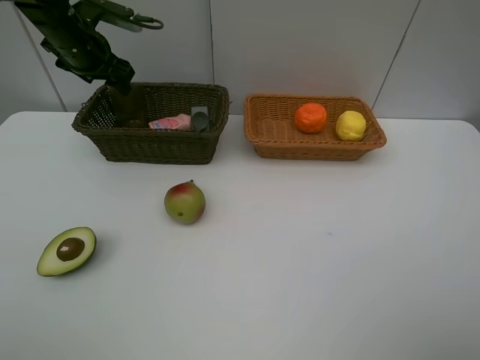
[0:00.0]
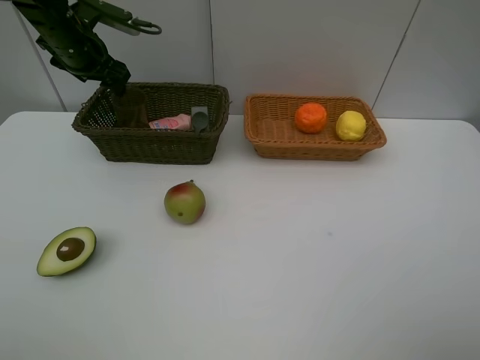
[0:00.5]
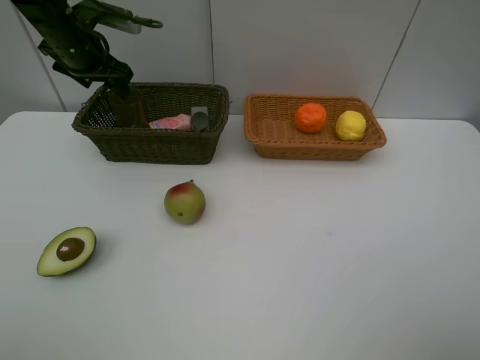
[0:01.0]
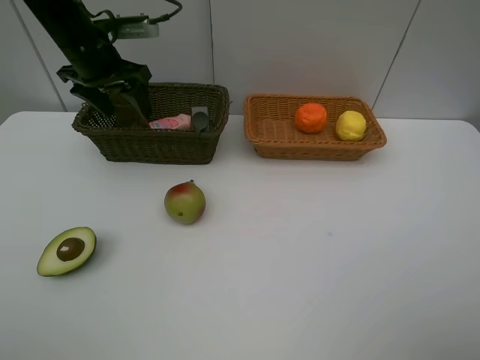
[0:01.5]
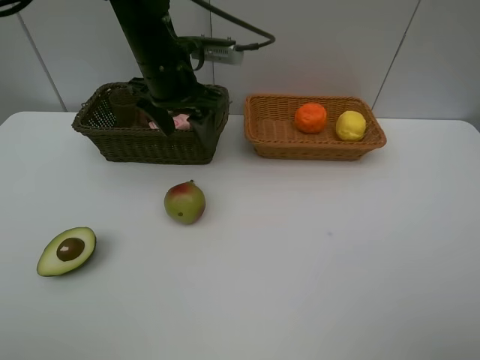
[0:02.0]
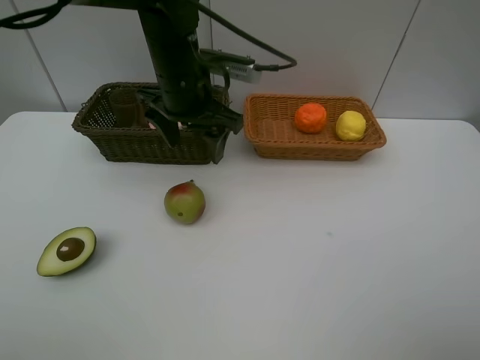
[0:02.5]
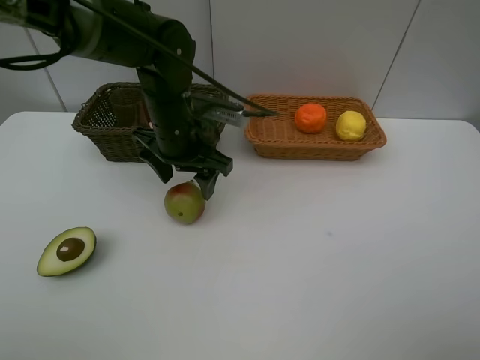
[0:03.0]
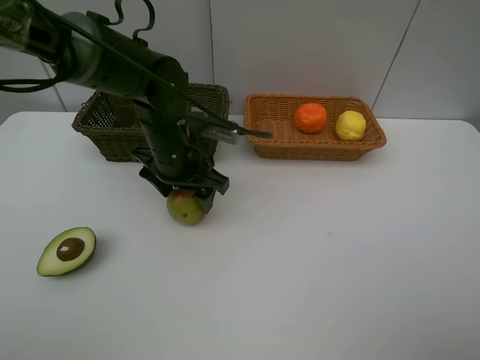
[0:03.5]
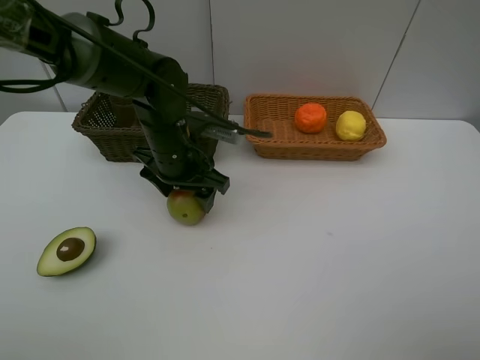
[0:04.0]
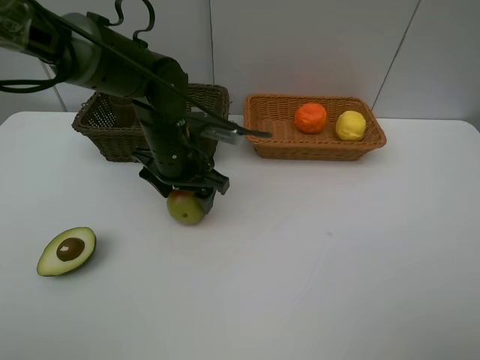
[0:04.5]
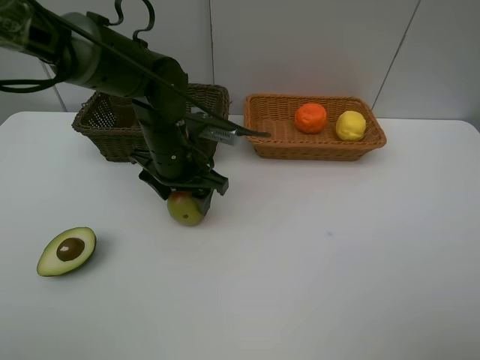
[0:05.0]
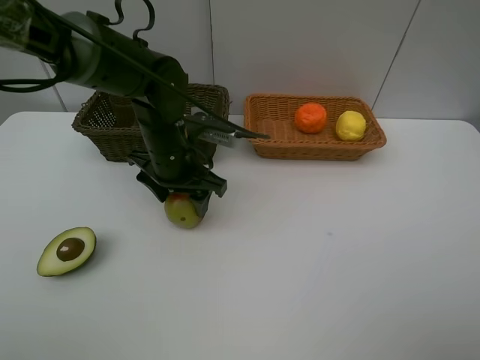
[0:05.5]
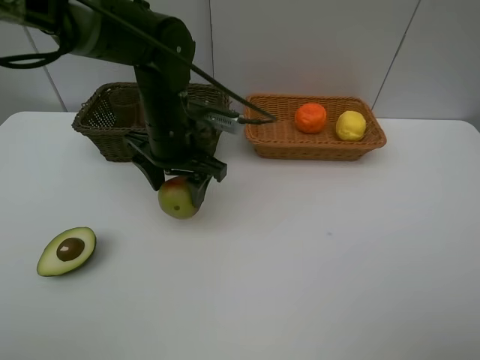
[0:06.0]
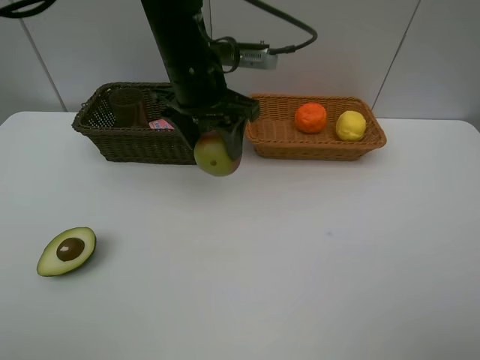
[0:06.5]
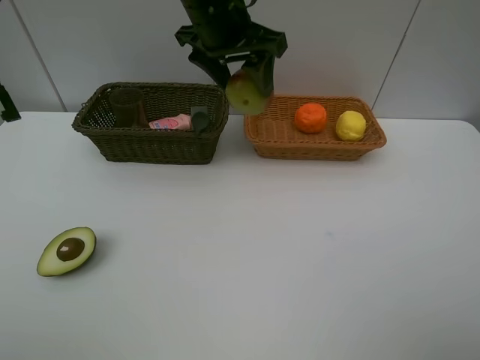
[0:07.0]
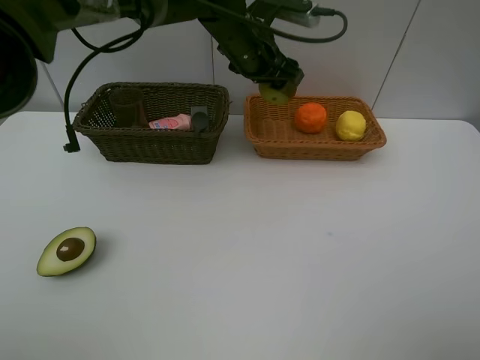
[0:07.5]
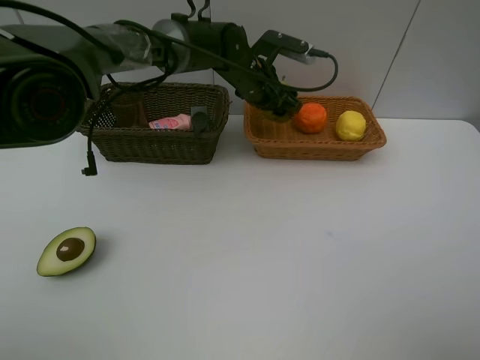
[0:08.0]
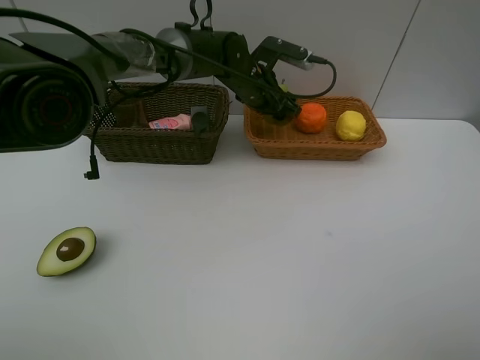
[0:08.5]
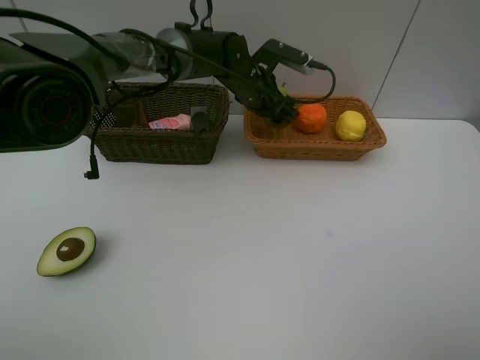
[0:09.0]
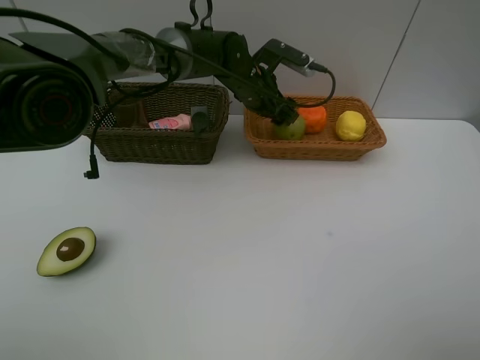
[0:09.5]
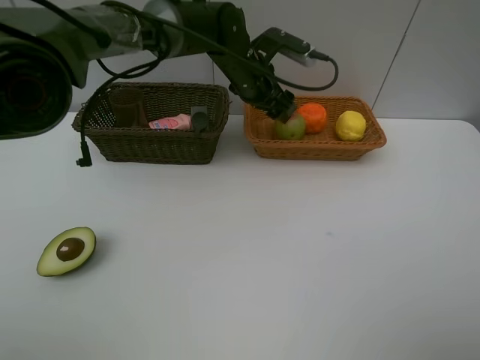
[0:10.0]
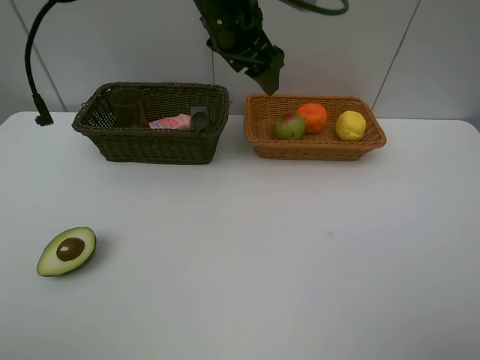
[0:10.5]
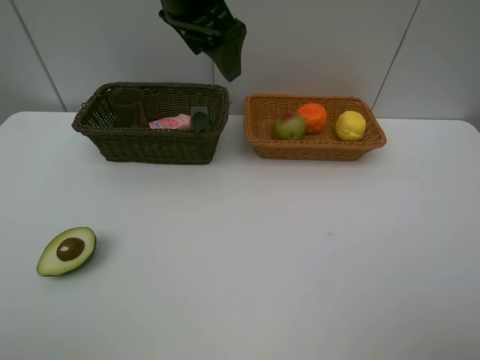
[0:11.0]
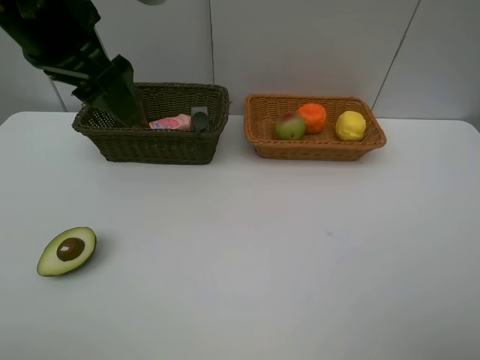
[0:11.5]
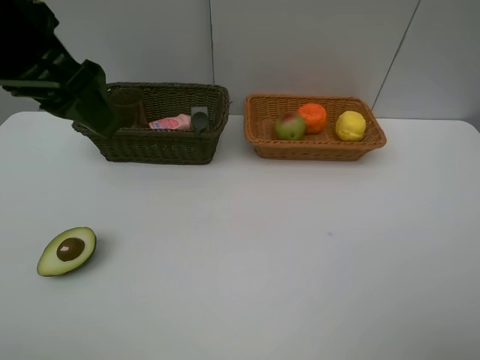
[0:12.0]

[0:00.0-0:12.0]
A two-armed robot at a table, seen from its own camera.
Task of the whole recording: Place multiple objects separately in different baskets.
Step, 0:01.5 to 0:06.0: Pick up the pear with left gripper.
Step, 0:06.5 to 0:10.0: Place the pear in the light basket with left gripper.
0:00.0 to 0:02.0: The left gripper goes approximately 20 cm to the right and backward.
0:02.0 to 0:04.0: The left gripper is displaced downward by roughly 10 cm.
0:04.0 to 0:06.0: The grippers stay close to where they were, moving slightly.
0:06.0 to 0:08.0: The left gripper moves forward and to the right, about 15 cm.
0:08.0 to 0:10.0: The grippers move only a little.
0:10.0 to 0:12.0: The left gripper goes roughly 30 cm backward, to the left and upward.

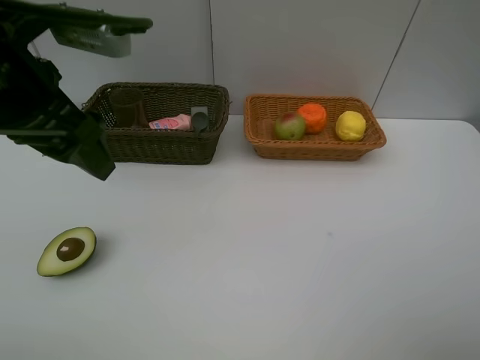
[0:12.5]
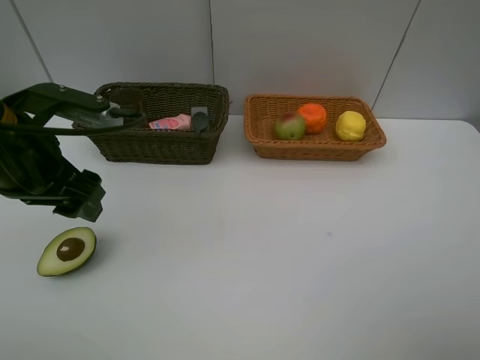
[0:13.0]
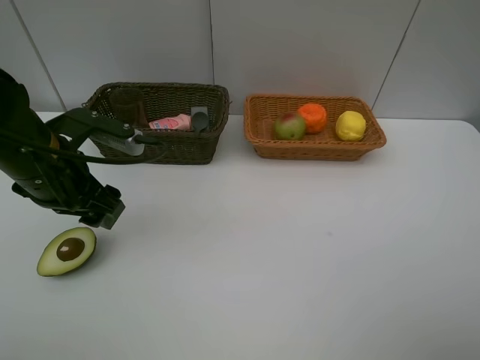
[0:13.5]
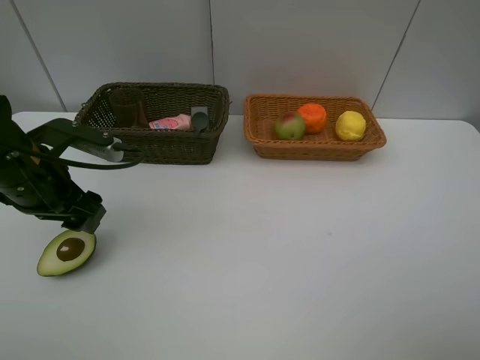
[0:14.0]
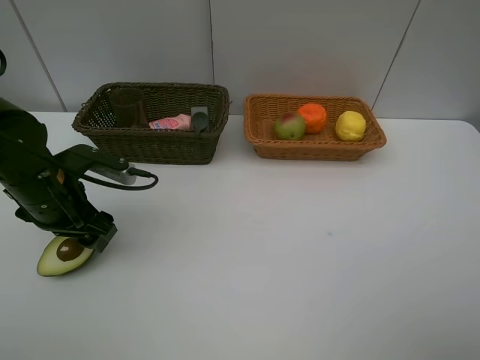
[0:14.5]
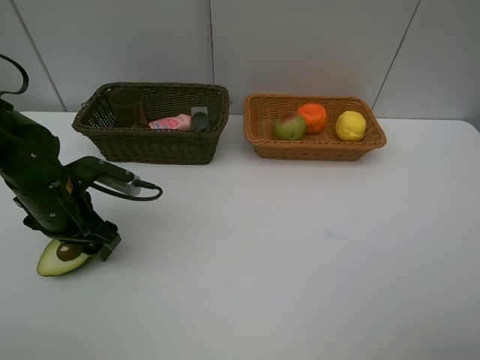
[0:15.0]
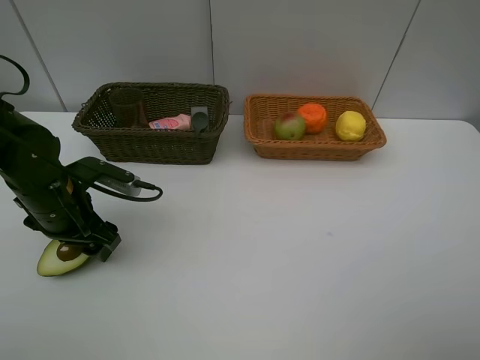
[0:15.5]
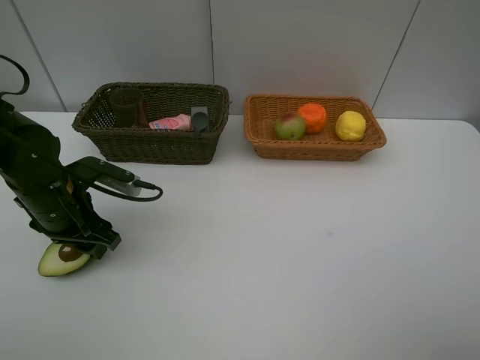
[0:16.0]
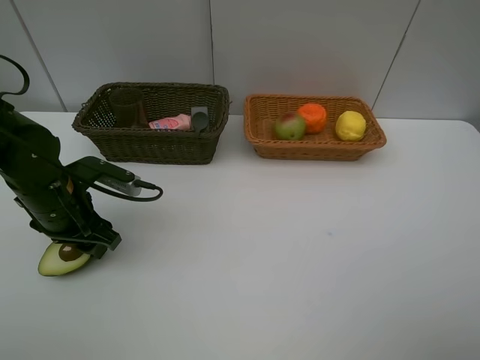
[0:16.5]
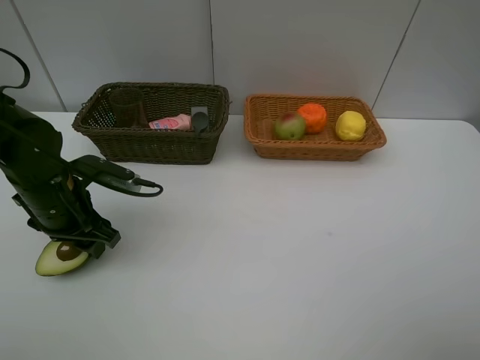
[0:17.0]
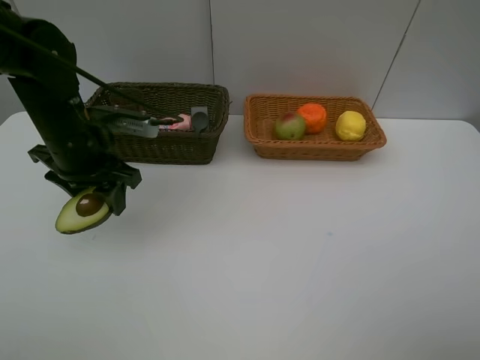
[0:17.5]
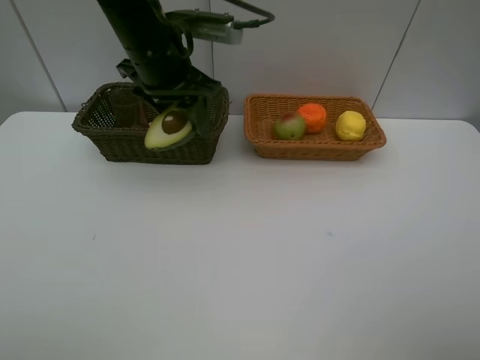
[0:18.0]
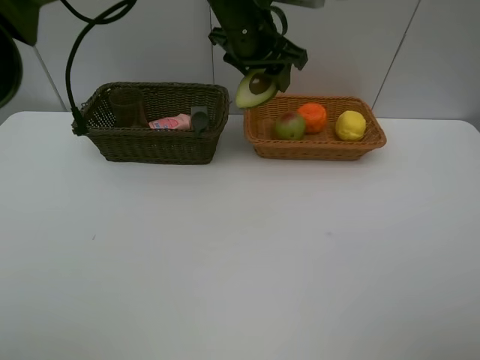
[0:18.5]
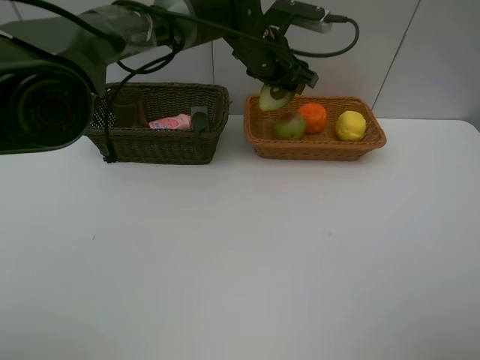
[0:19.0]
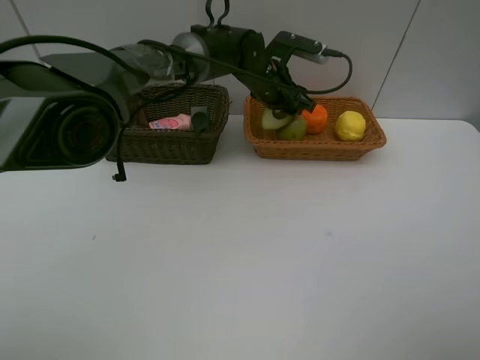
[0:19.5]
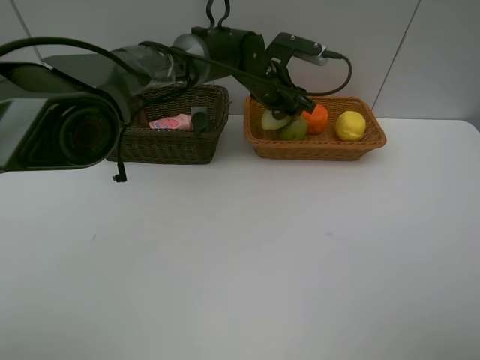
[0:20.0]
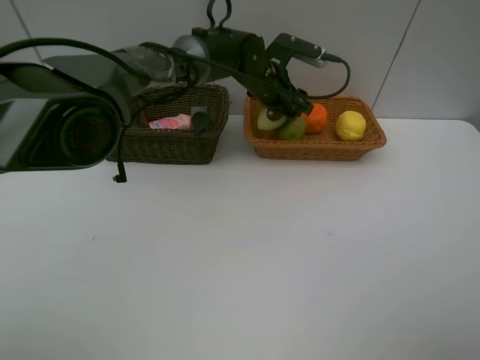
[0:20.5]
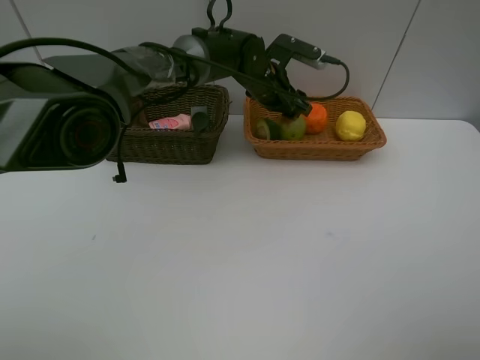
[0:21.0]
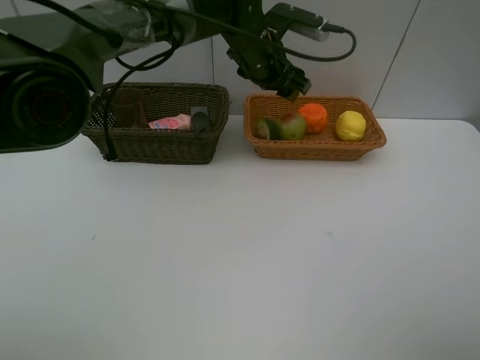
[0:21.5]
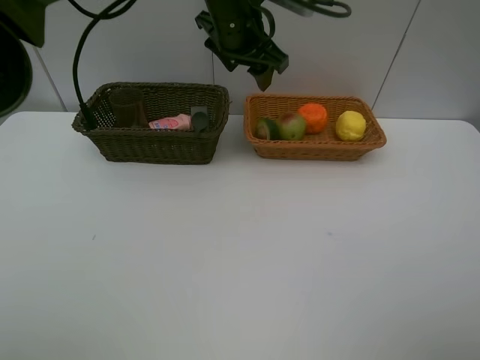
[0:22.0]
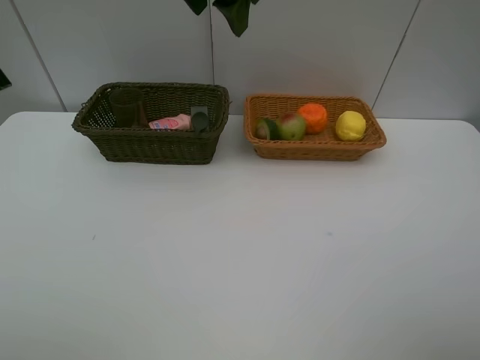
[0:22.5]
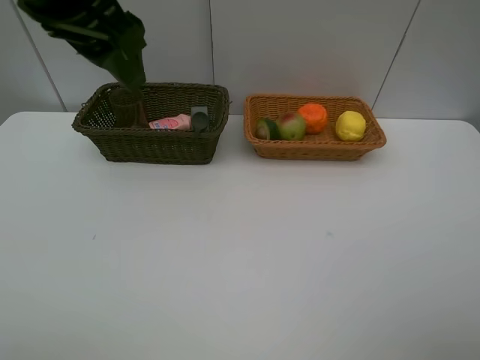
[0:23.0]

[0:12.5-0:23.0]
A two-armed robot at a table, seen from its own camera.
Task of the whole recording: Place multiple objects separately in different baskets.
Step, 0:12.5 to 0:17.0: Pick up the avocado with left gripper.
Step, 0:17.5 to 0:21.0: Place the avocado in the light basket with left gripper.
0:12.5 to 0:14.5: The left gripper shifts approximately 15 cm downward.
0:14.5 to 0:16.5: The grippers move only a little.
0:16.5 to 0:19.0: The left gripper goes approximately 35 cm to the right and forward.
0:19.0 to 0:21.0: The left gripper ends up roughly 5 cm from where it was.
0:21.0 to 0:23.0: The left gripper moves backward, upward and to the left, about 35 cm.
